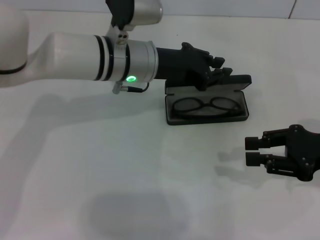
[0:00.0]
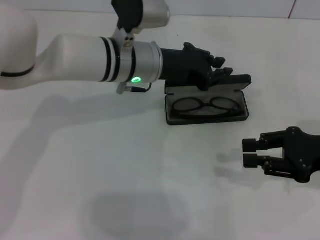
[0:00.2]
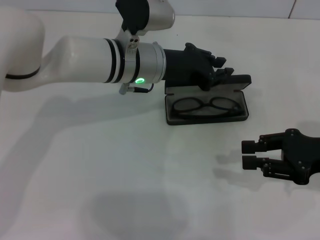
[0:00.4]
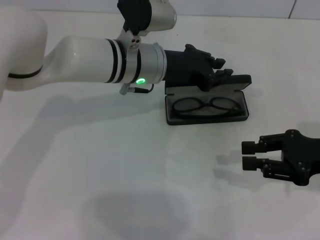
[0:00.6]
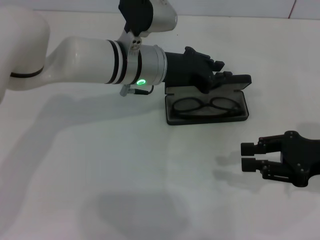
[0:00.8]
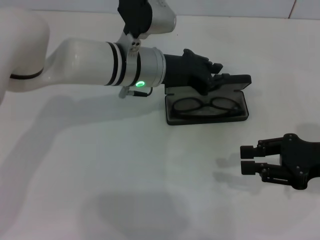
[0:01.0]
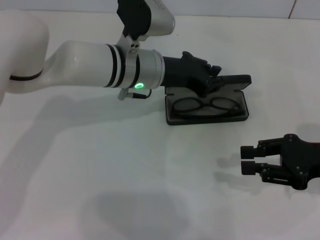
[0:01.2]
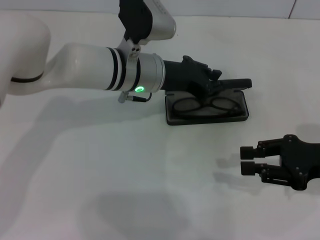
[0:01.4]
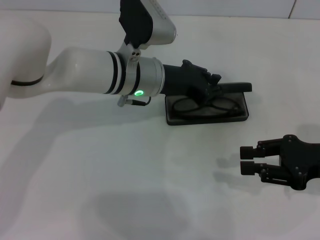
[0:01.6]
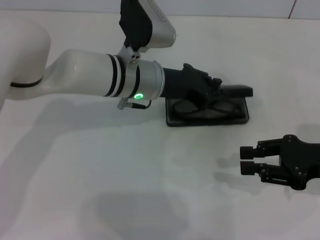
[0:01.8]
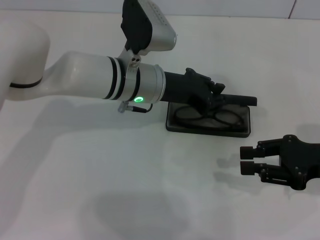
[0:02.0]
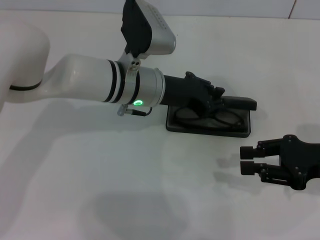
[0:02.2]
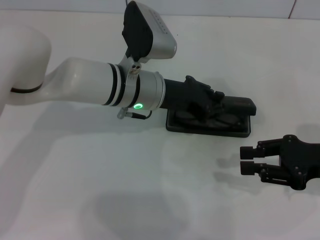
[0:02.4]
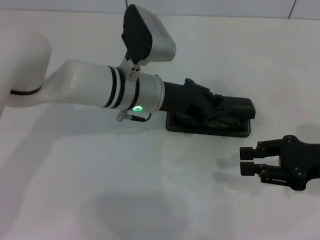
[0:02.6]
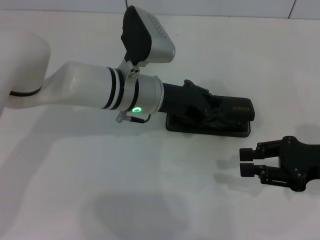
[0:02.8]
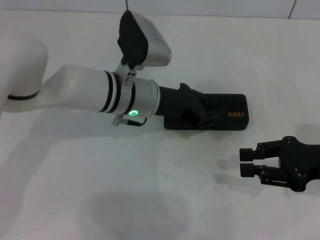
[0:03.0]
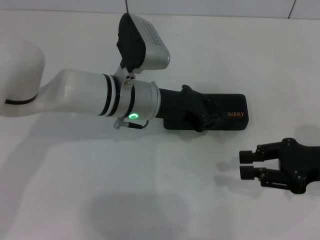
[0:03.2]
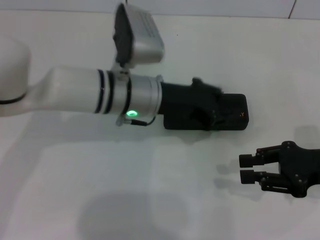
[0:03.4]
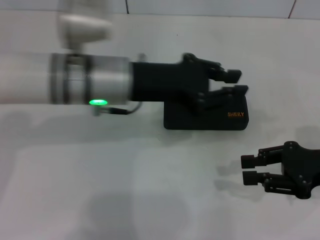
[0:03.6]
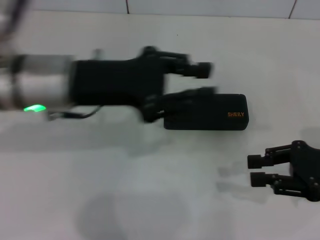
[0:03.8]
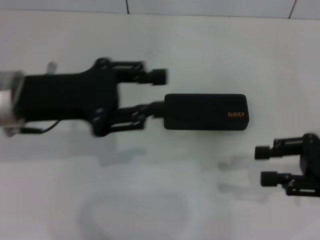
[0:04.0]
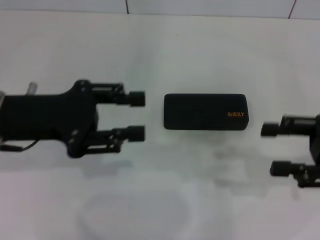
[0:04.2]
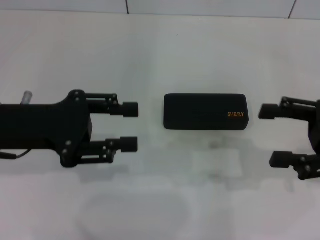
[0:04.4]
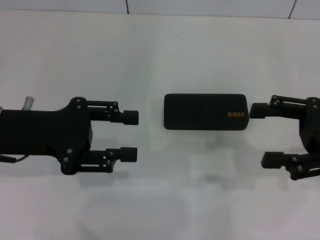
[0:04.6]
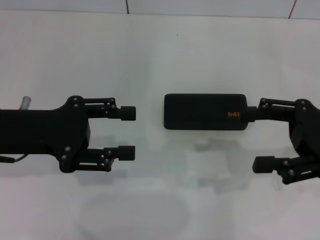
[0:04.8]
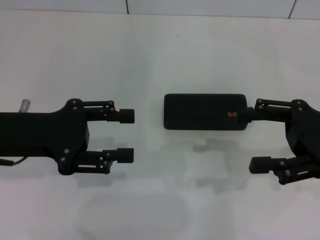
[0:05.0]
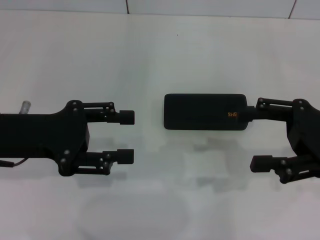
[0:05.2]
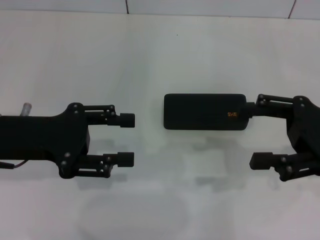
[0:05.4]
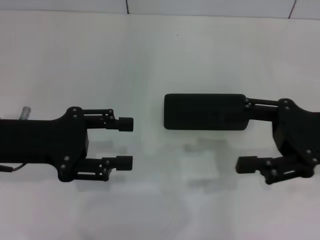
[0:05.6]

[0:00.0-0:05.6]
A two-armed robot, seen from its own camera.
Step, 0:00.0 to 0:03.2: Close the glasses case with your left hand.
0:00.0 to 0:02.8: There are only small adjustments of the grippers.
0:02.8 to 0:04.2: The left gripper goes approximately 20 cm to the left and backward.
0:04.2 to 0:05.6: The right gripper ends up roughly 5 cm from where it was, and opens its fingers.

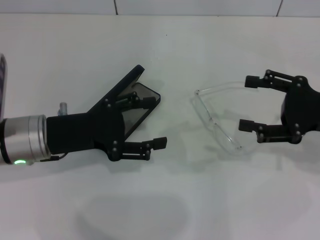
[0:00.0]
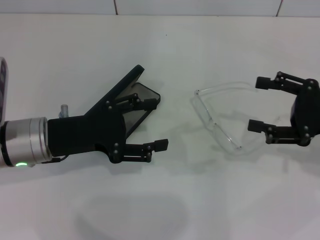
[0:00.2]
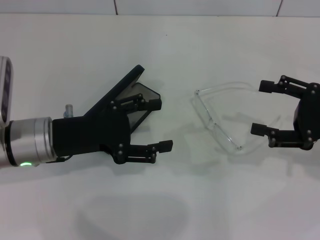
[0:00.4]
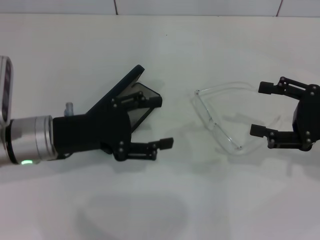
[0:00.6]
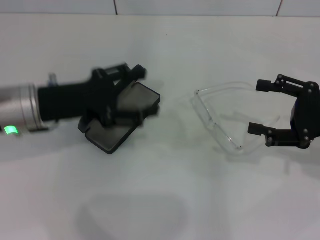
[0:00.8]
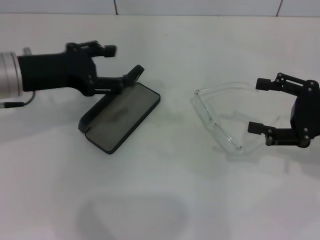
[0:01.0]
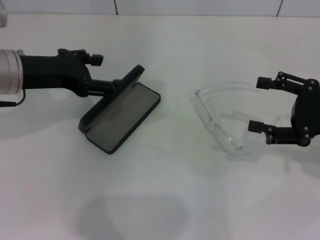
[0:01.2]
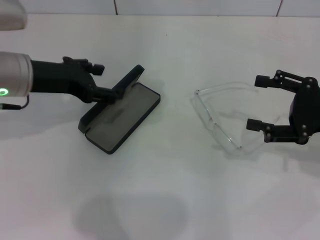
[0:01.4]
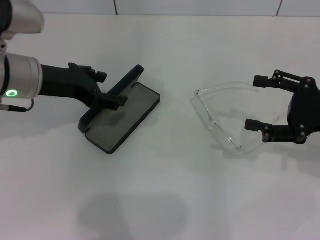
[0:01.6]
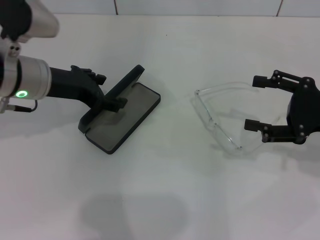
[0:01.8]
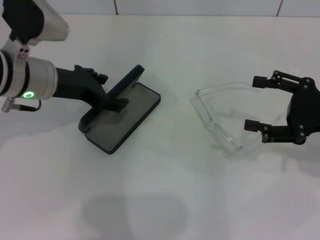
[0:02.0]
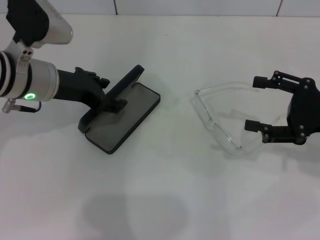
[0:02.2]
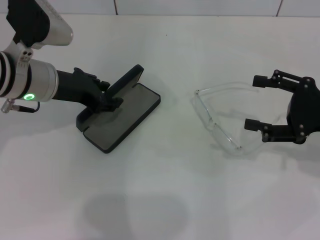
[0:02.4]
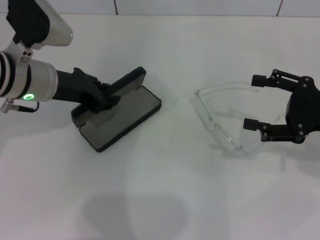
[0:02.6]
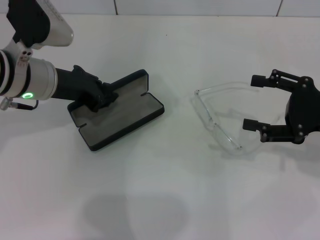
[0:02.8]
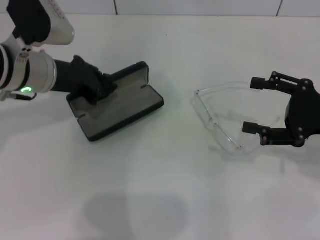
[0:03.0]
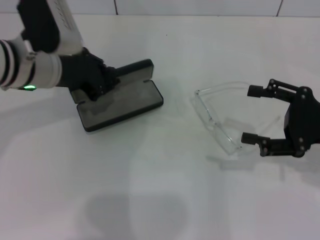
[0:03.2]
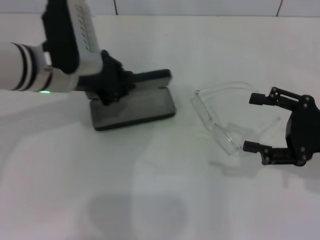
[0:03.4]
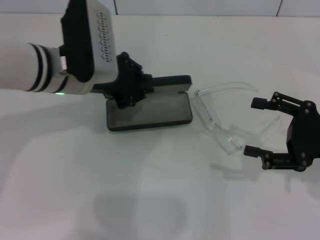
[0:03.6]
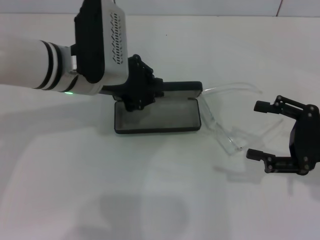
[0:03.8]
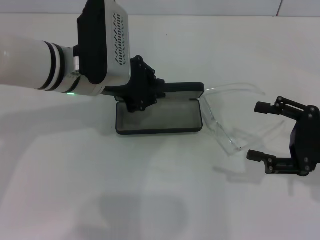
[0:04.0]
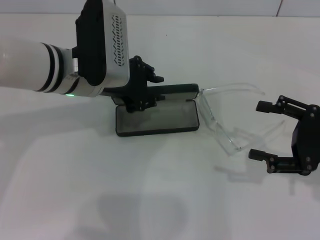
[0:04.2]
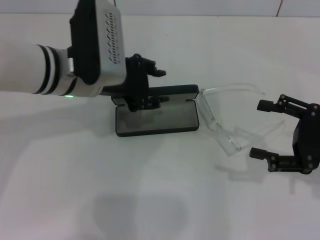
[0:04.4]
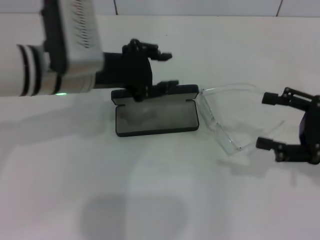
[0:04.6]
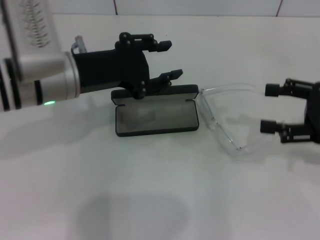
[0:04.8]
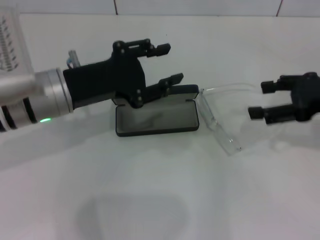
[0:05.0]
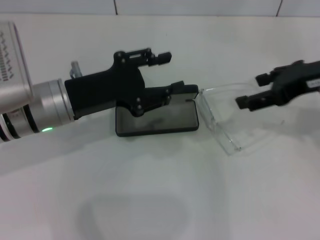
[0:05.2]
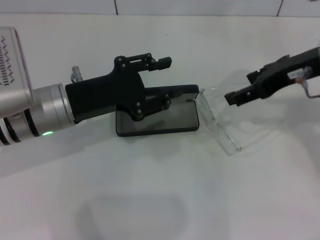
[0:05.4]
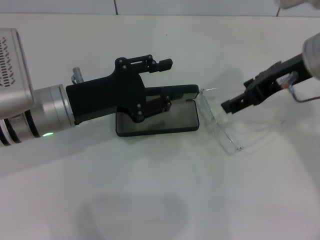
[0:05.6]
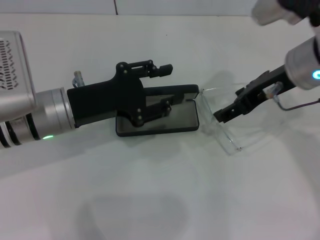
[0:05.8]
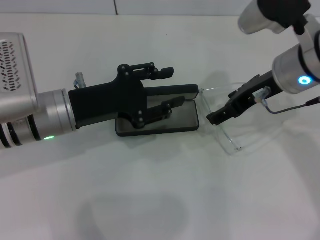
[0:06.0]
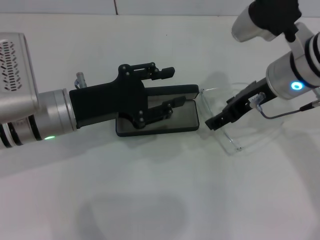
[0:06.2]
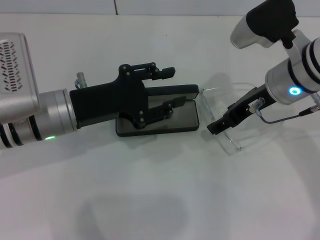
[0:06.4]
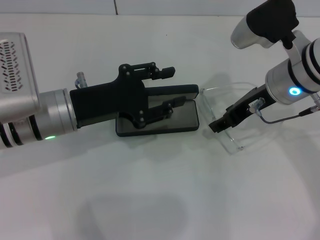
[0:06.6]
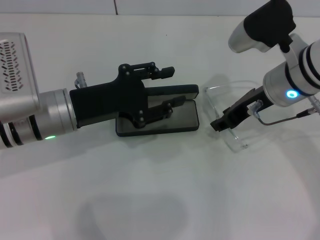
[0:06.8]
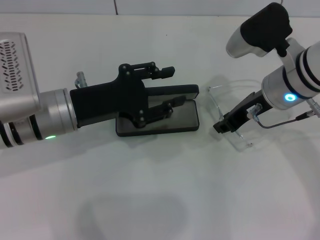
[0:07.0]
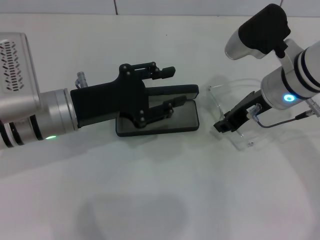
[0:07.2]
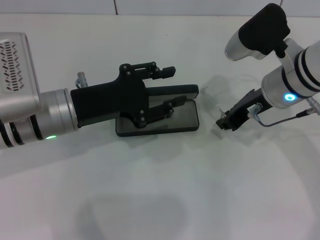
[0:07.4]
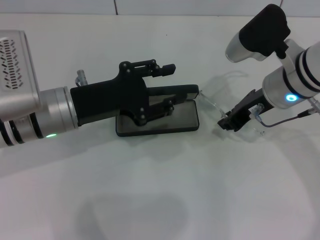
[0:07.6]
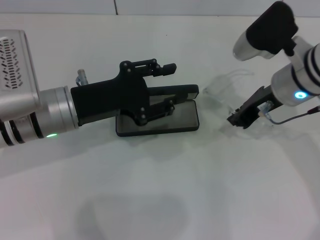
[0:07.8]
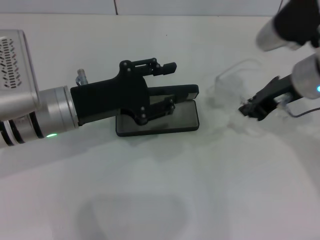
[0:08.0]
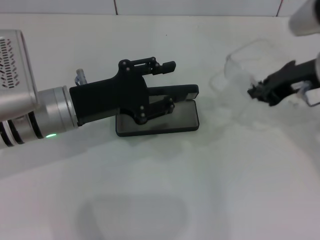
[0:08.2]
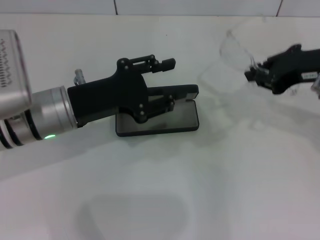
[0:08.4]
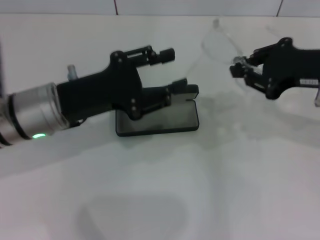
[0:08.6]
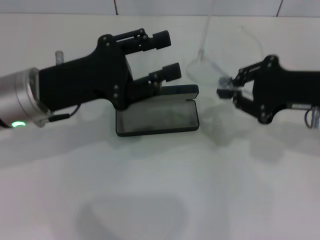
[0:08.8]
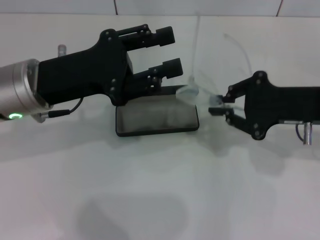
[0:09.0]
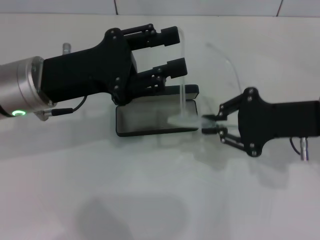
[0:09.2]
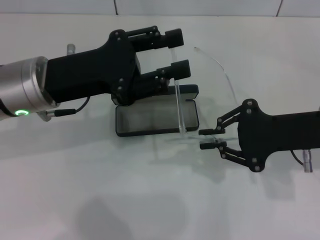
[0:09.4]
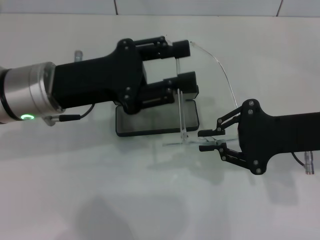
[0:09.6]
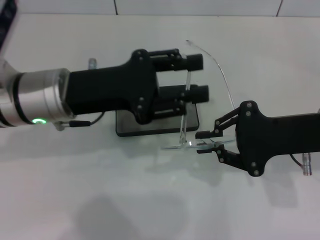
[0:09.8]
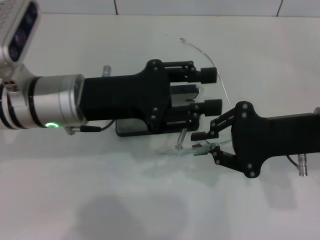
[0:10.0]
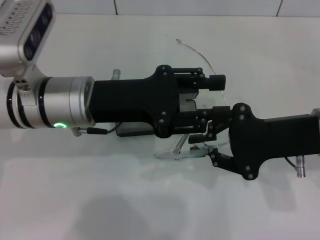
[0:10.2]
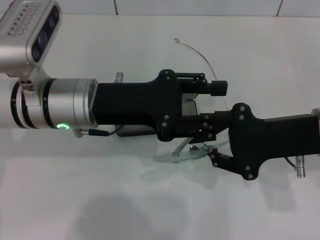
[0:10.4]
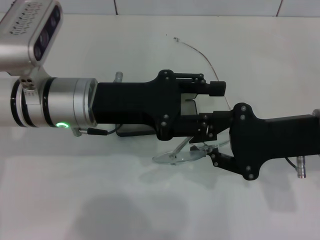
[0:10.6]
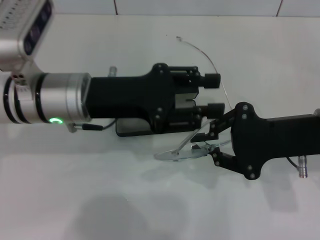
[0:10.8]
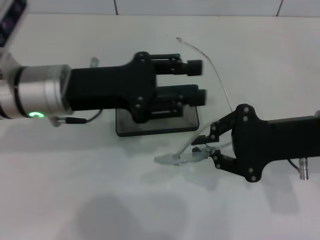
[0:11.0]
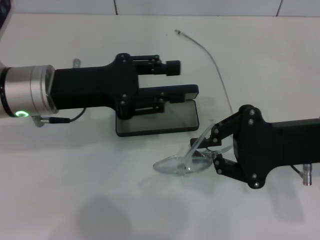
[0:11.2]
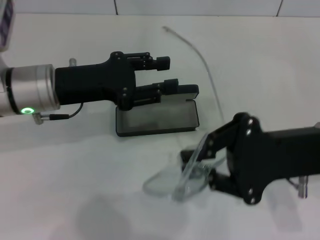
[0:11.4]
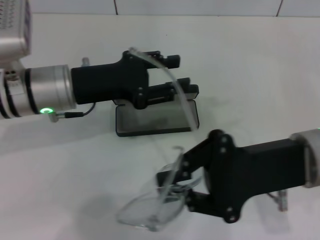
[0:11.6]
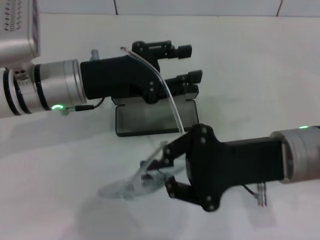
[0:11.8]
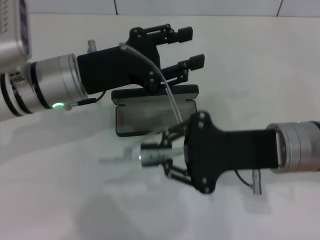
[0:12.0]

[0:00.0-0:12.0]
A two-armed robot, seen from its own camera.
Step, 0:00.0 to 0:02.6: Grab the glasses case with your left hand.
Step, 0:02.8 to 0:04.0: Place the glasses case in the center of the table with your left hand.
Step, 0:04.4 to 0:07.6: Grab the eyeglass frame with your right hand.
0:00.0 to 0:01.6: The left gripper heads forward and upward, covering about 10 cm.
0:01.6 to 0:03.0: The left gripper closes its fingers.
0:03.0 to 0:04.4: The left gripper is displaced to the right by approximately 5 cm.
0:04.4 to 0:06.0: The right gripper heads to the left, forward and upward, covering about 20 cm. The left gripper shifts by about 10 cm, and opens its fingers.
0:06.0 to 0:07.6: The right gripper closes its fingers.
0:07.6 to 0:09.0: The right gripper is displaced to the right and backward by roughly 10 cm.
0:09.0 to 0:10.4: The left gripper is displaced to the right by roughly 5 cm.
0:10.4 to 0:12.0: The right gripper is displaced to the left by roughly 5 cm.

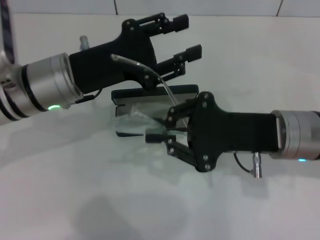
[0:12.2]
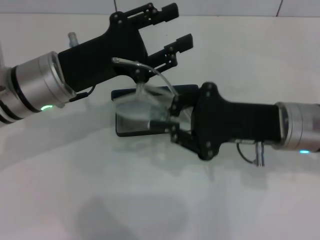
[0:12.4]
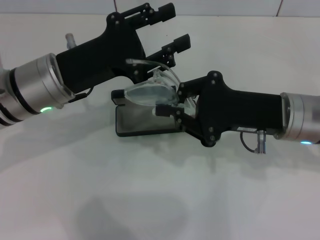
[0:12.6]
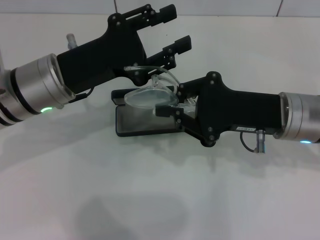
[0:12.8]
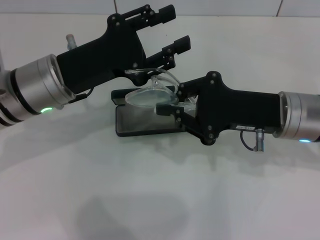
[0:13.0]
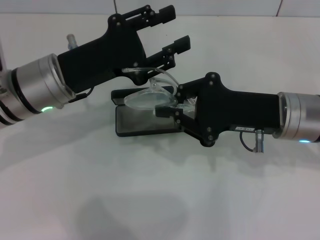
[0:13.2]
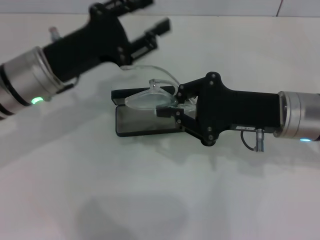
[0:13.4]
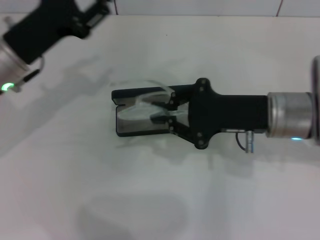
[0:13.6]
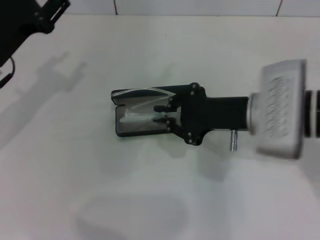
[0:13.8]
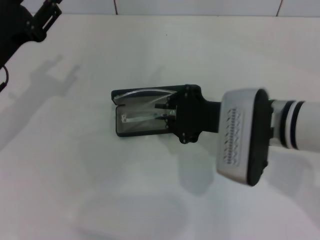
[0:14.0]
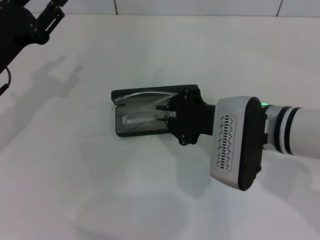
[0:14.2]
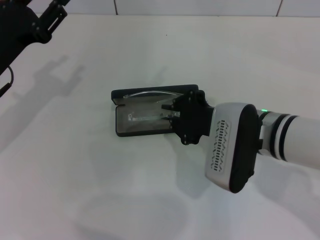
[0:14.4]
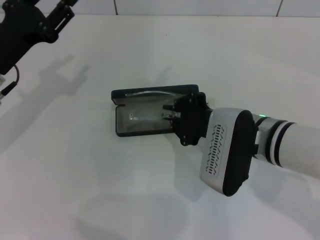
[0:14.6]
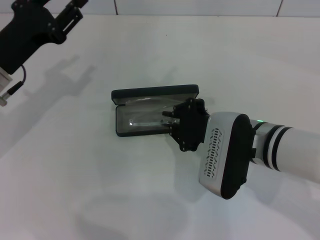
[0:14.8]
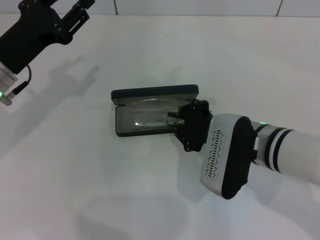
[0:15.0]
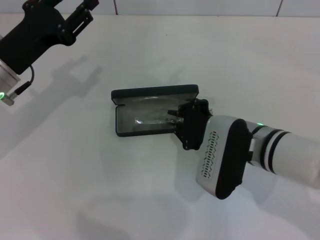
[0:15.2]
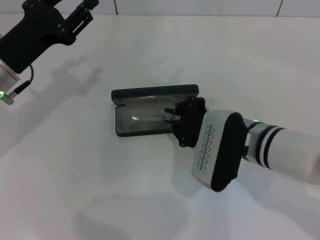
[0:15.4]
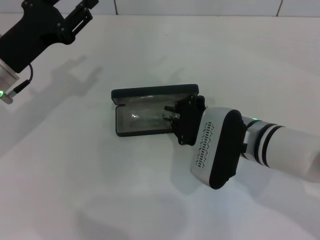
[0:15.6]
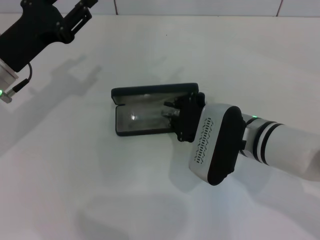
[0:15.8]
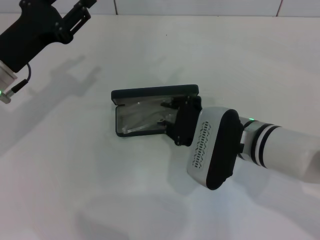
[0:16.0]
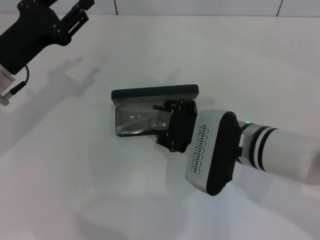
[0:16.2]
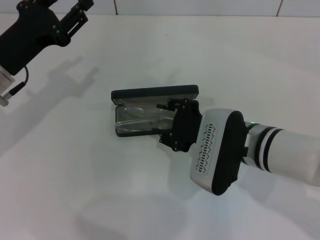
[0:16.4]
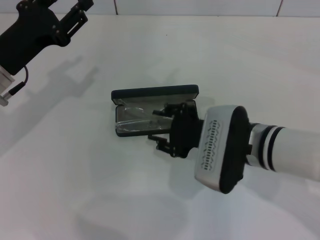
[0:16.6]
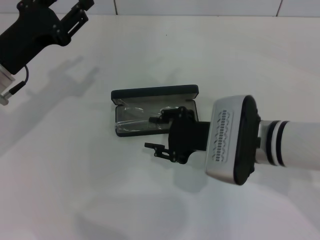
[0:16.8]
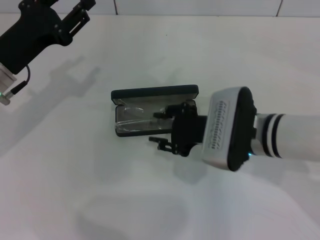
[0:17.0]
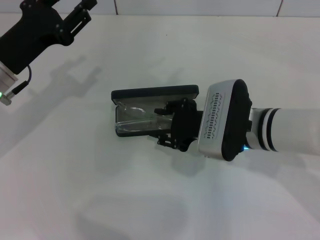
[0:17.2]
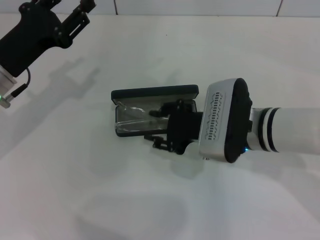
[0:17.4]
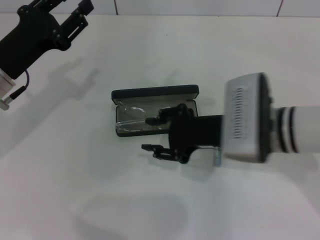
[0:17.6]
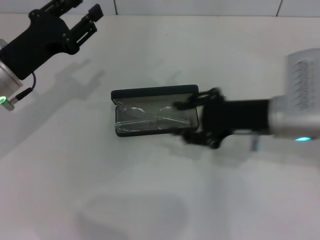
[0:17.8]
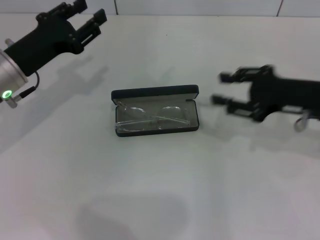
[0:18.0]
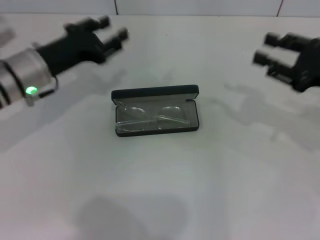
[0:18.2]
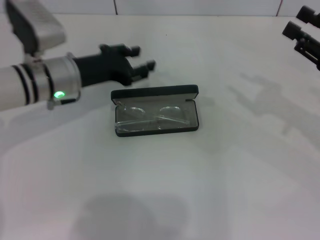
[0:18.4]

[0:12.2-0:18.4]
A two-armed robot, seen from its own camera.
Step, 0:13.2 to 0:16.8: Put the glasses into the case with your right hand.
0:12.2 to 0:13.8: The left gripper is displaced to the left by approximately 10 cm.
0:13.8 to 0:15.4: The right gripper moves downward, roughly 5 cm.
0:15.4 to 0:16.8: The right gripper opens.
0:16.8 to 0:18.4: The right gripper shifts about 20 cm to the right. The left gripper goes approximately 10 cm to the right and forward.
